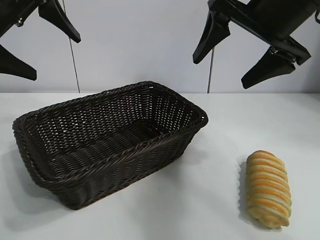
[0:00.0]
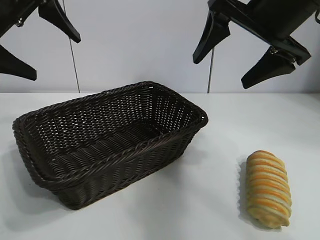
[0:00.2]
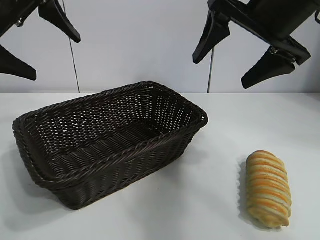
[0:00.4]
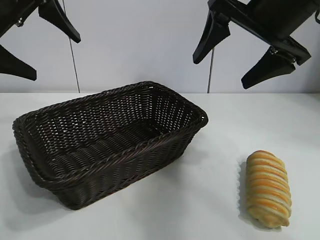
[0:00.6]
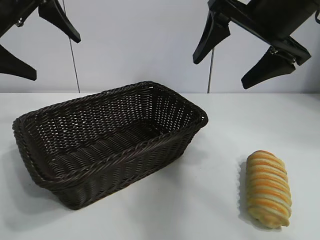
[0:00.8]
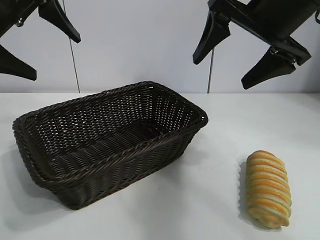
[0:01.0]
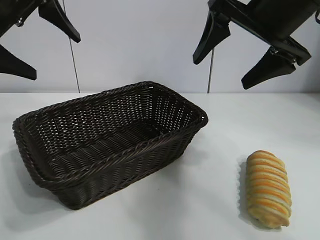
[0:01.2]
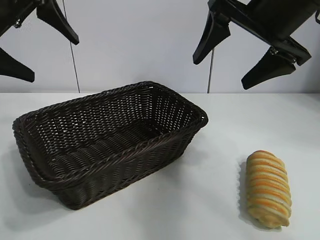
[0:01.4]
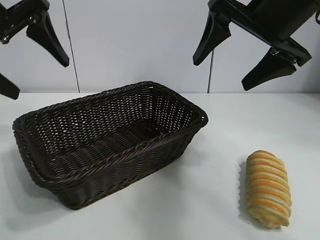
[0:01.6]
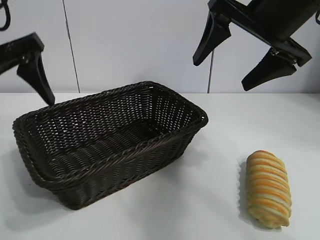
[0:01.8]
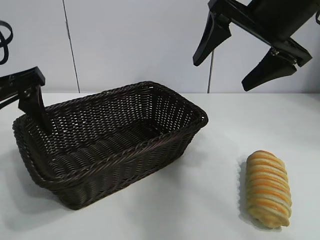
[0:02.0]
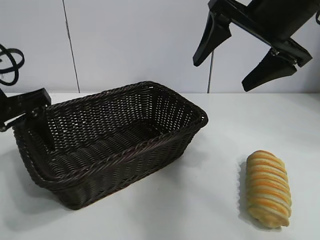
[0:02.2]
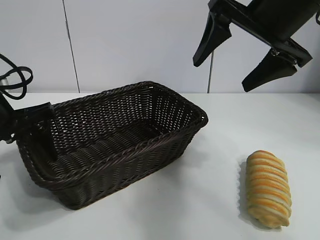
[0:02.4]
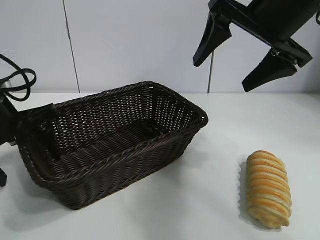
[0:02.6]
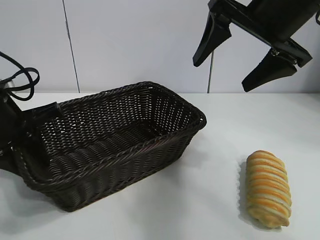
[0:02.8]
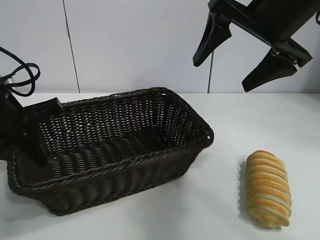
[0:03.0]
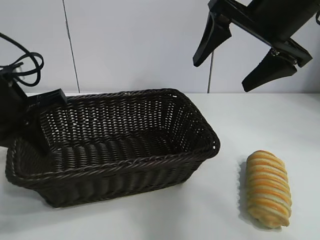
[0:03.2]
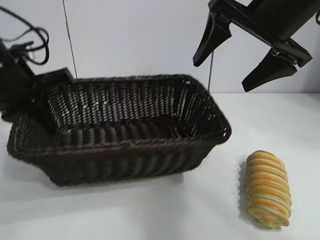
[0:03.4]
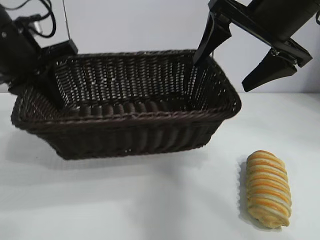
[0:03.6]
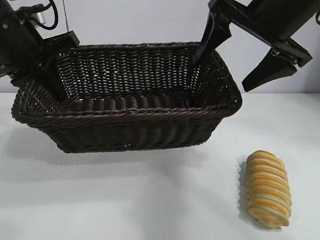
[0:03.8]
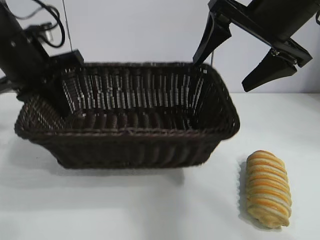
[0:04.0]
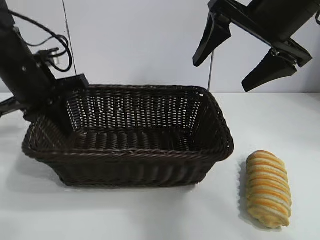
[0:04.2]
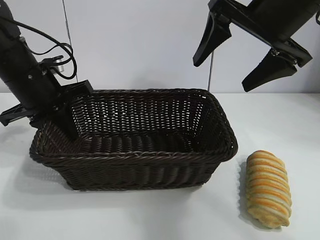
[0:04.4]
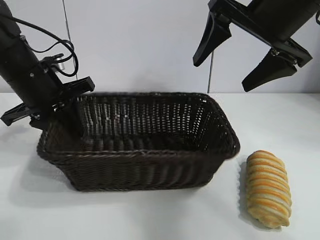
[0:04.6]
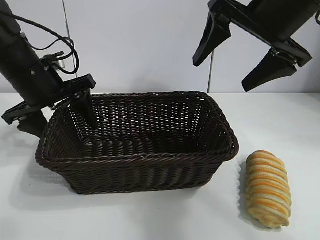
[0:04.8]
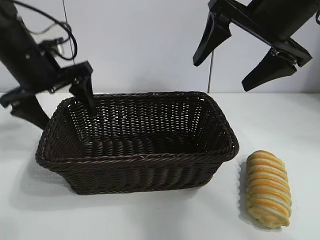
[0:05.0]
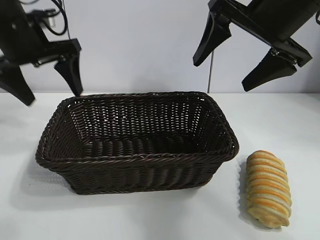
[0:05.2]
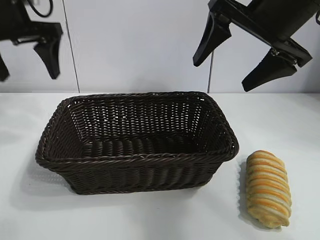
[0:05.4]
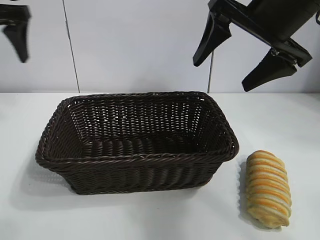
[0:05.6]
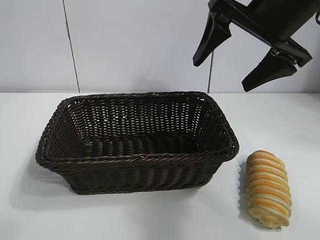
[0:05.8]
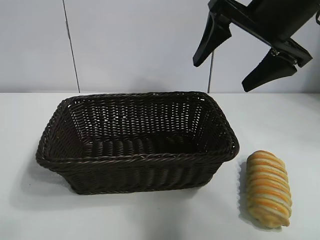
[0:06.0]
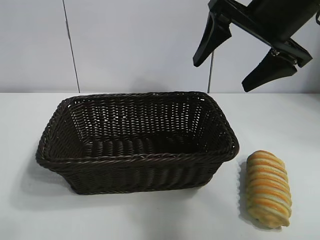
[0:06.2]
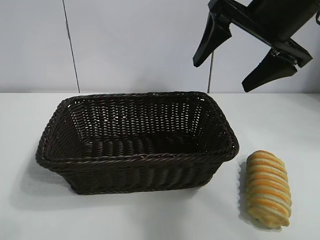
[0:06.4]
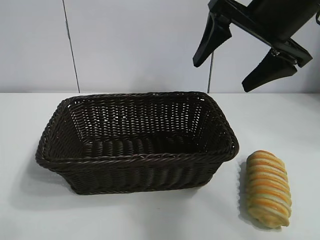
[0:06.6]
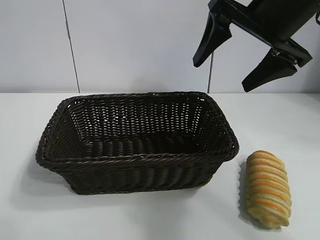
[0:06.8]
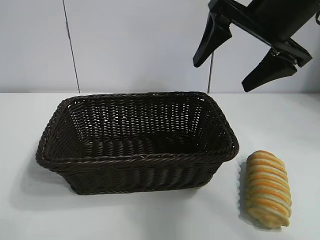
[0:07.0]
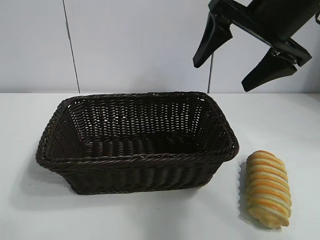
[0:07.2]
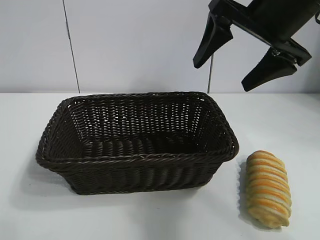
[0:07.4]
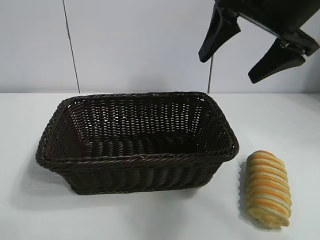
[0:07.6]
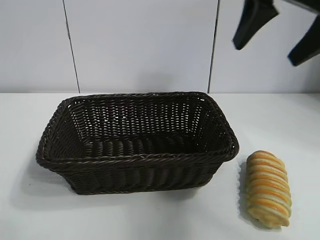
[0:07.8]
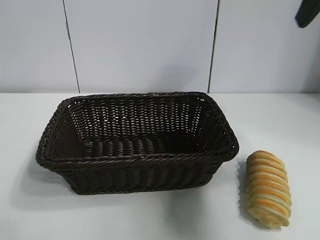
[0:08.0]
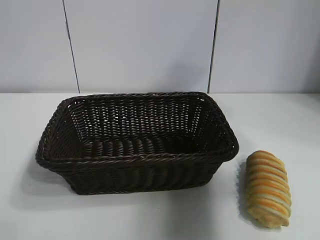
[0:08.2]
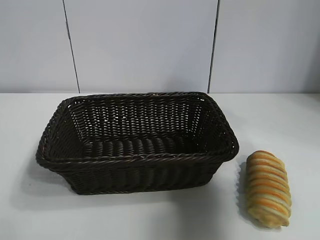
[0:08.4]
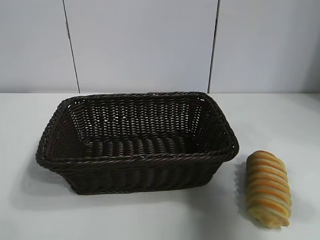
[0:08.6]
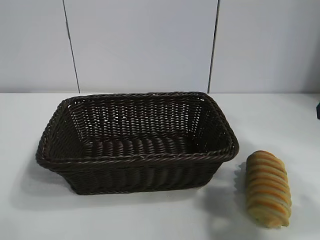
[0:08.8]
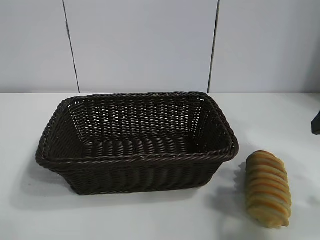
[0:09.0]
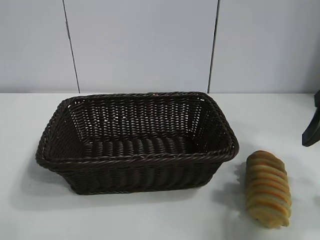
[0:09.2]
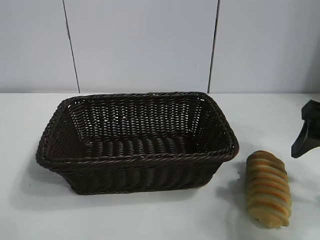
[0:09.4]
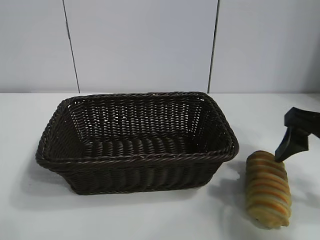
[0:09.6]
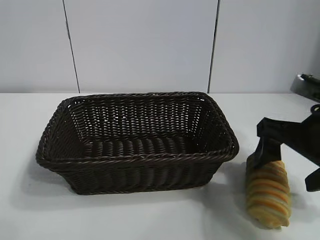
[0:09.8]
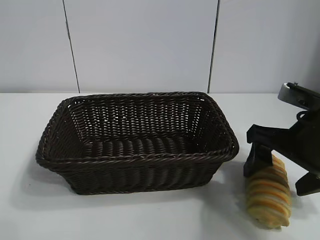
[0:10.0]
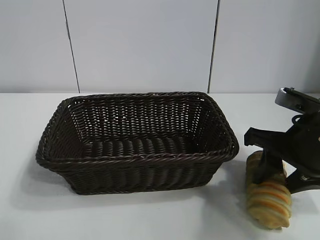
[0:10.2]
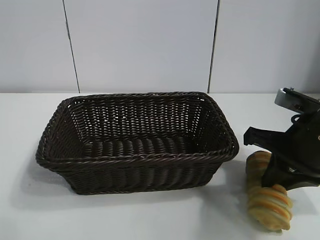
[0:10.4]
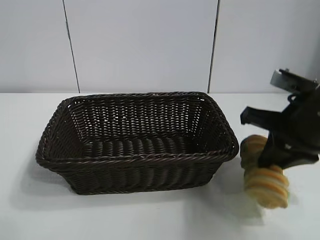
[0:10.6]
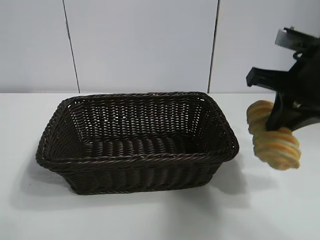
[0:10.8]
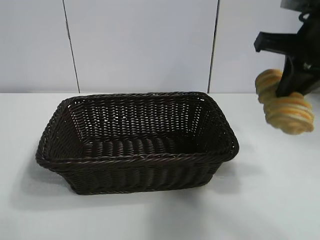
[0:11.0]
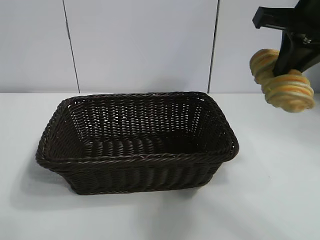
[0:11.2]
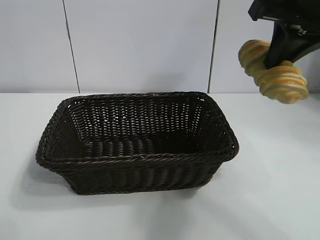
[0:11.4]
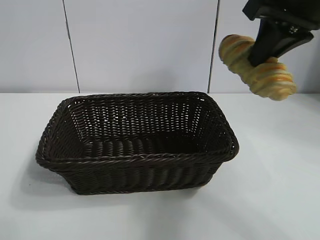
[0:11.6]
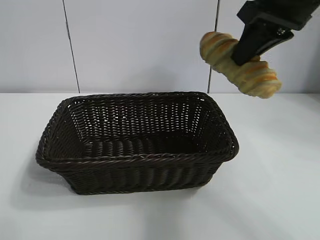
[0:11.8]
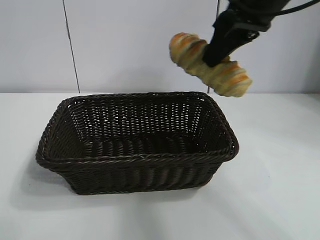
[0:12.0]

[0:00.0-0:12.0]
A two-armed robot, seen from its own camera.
Task of the whole recording: pick up the long bread and put it into the basket.
Step, 0:01.2 to 0:02.8: Grasp the basket with the left gripper.
Step, 0:03.0 to 0:04.8: Place the basket in the center of the table with the left gripper.
Step, 0:05.0 to 0:10.4: Grasp the long bread with right gripper.

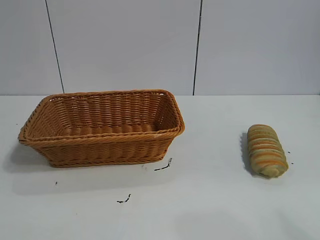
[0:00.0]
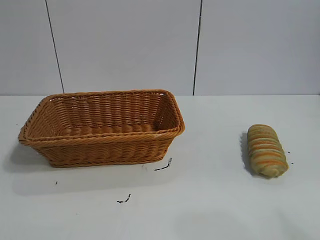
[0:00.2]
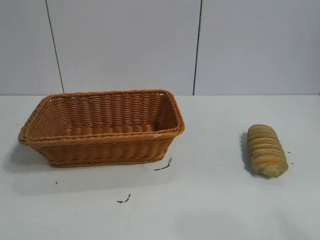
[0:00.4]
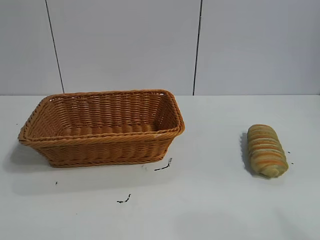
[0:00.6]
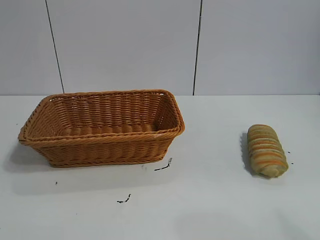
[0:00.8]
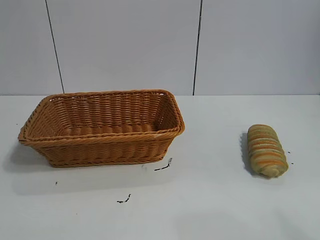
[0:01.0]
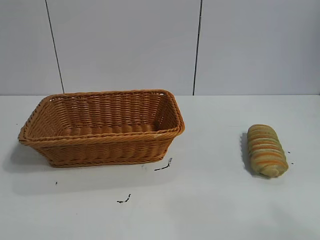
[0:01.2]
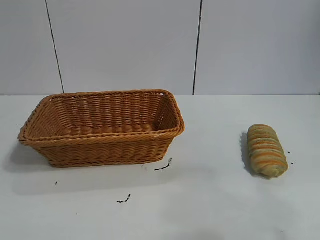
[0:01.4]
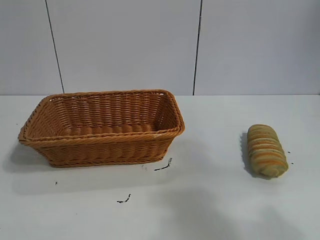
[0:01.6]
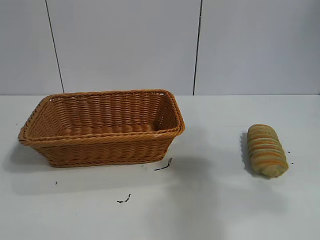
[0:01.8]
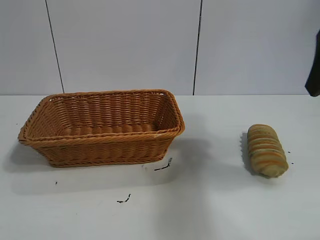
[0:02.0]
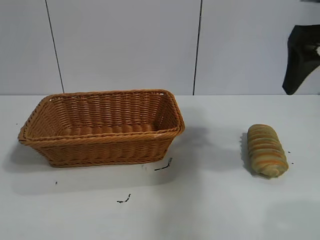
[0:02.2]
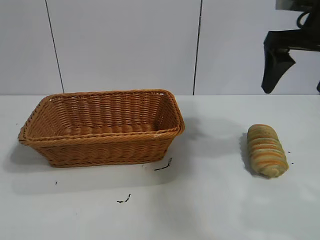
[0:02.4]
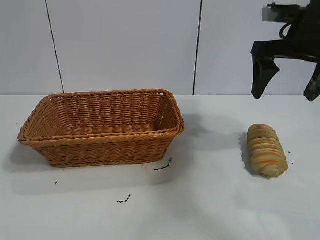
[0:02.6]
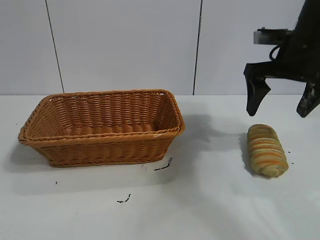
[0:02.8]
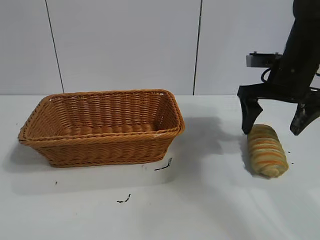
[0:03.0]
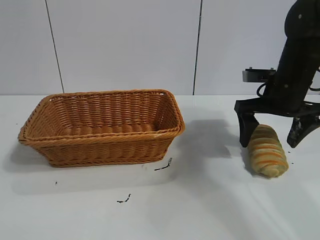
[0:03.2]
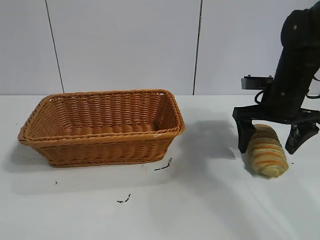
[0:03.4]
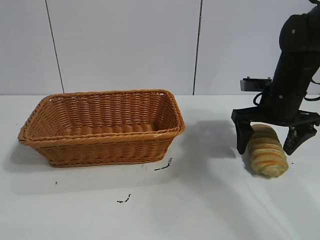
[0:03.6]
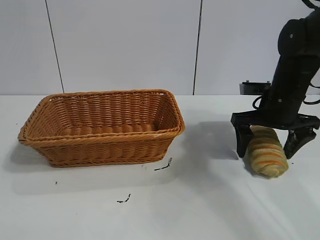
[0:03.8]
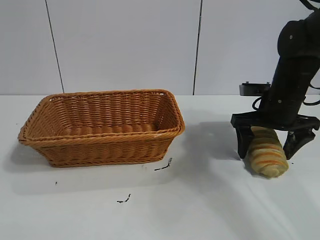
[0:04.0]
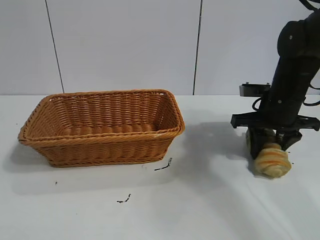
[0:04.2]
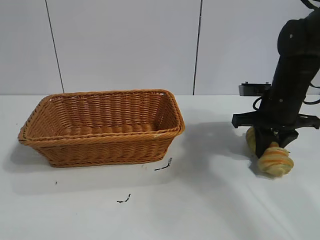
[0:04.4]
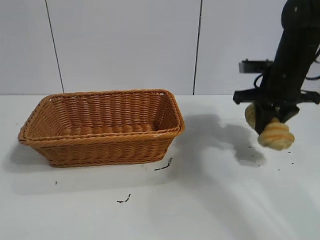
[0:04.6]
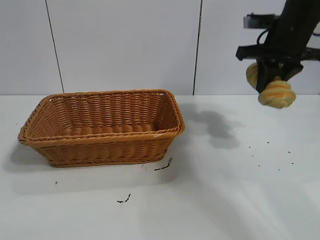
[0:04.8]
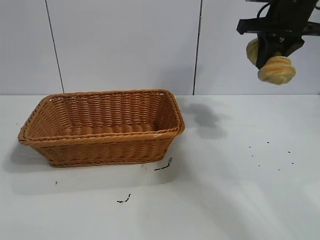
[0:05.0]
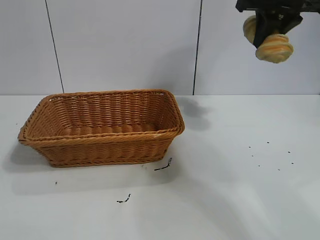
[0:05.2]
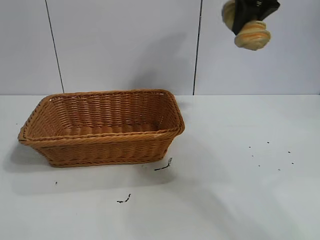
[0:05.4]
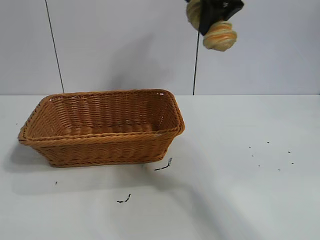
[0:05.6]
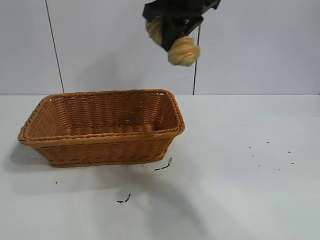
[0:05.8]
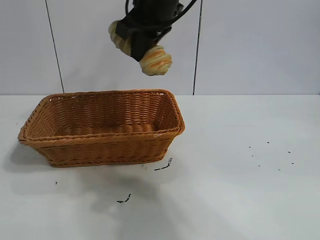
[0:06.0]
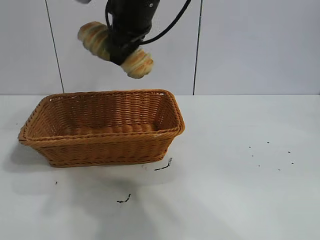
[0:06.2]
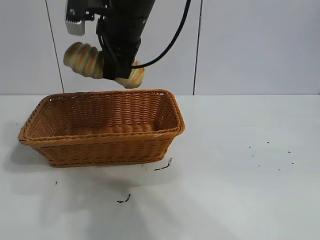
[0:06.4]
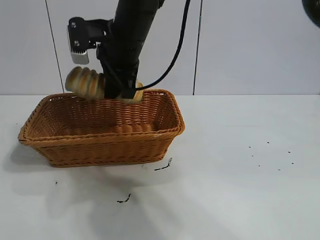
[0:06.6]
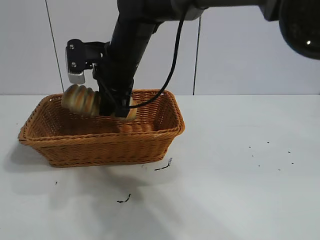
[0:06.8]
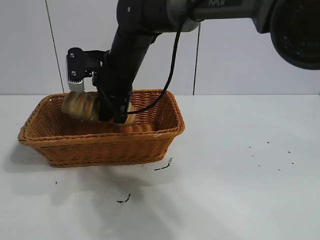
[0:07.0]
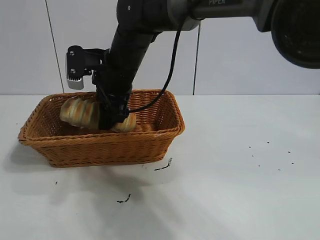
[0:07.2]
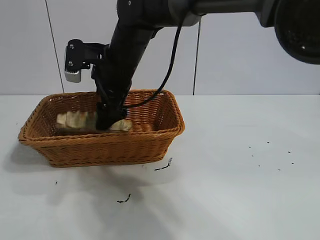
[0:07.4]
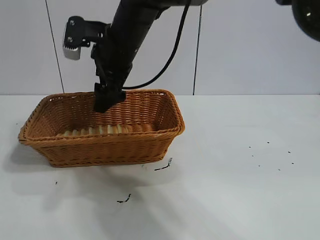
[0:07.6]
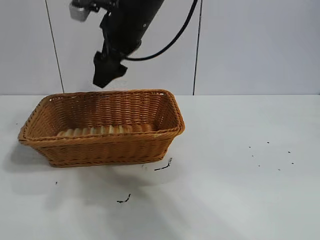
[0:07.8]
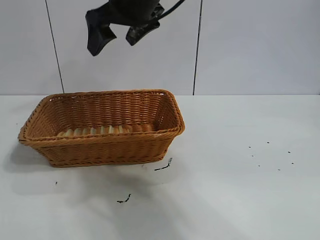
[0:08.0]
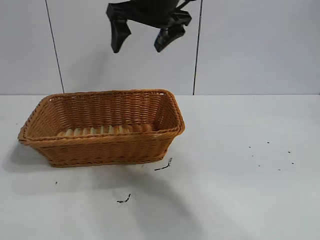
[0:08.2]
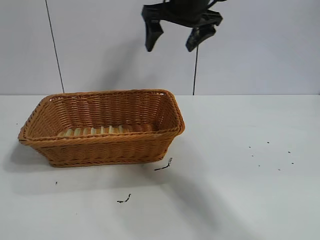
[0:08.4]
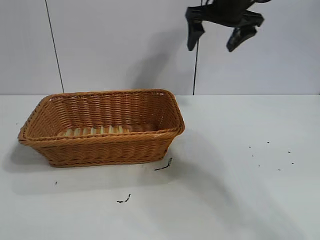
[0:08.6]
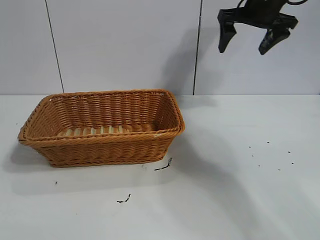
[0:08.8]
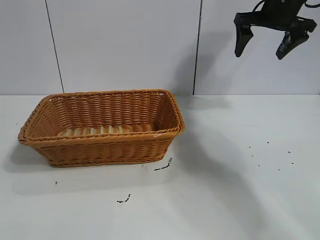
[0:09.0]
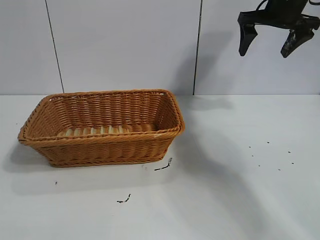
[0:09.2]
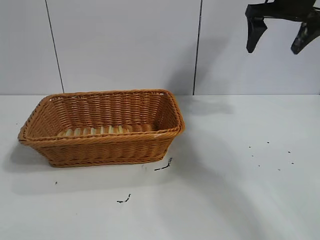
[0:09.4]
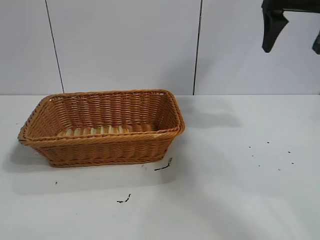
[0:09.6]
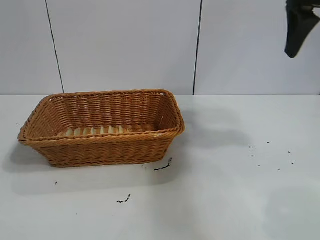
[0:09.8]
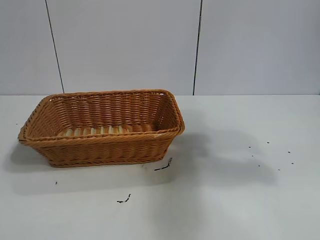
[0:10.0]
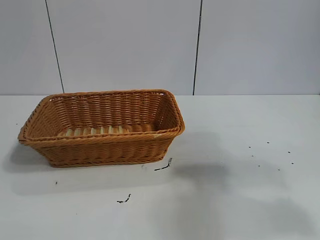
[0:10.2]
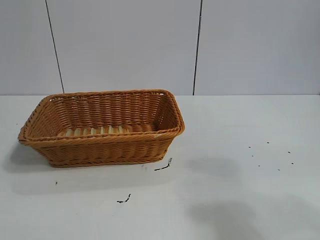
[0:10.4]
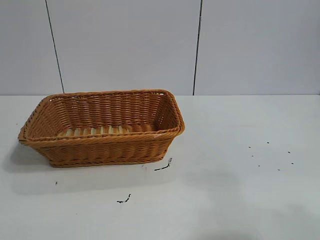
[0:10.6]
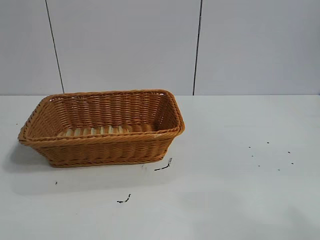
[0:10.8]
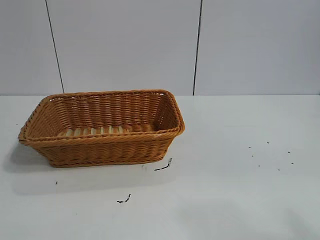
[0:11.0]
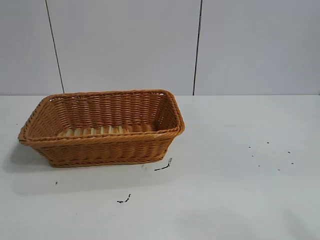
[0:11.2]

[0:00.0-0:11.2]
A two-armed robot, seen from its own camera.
Task of the whole recording: pick up the long bread and put it into the basket.
Step, 0:02.0 to 0:04.4: Grasp the long bread with right gripper.
Step, 0:04.6 to 0:07.6: Place the long bread in the basket with right gripper.
